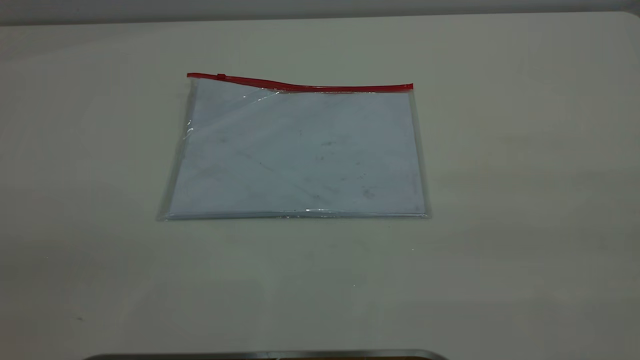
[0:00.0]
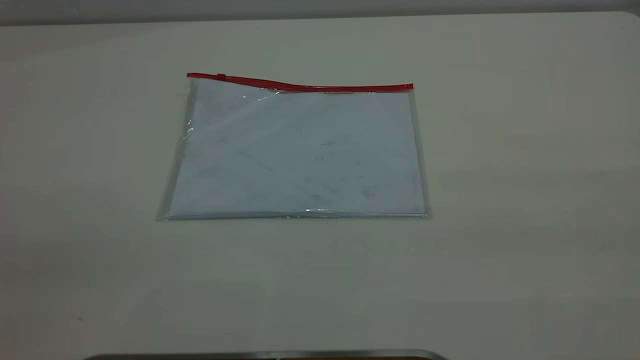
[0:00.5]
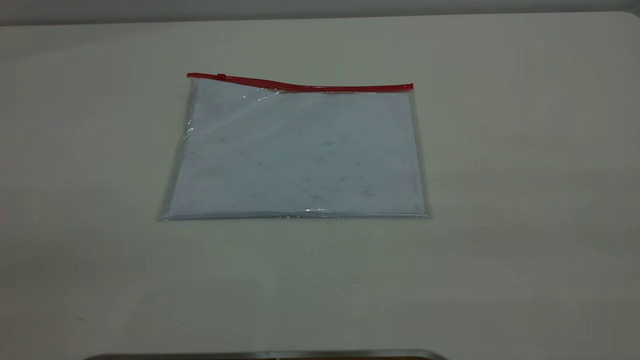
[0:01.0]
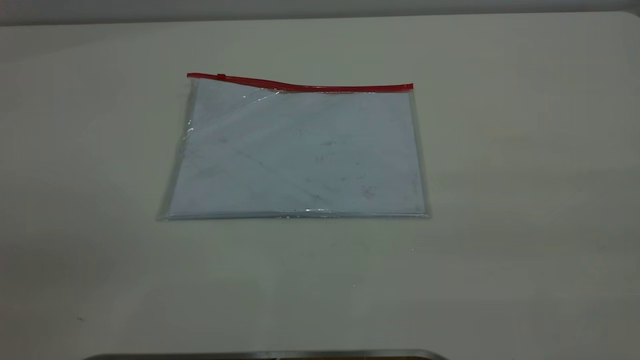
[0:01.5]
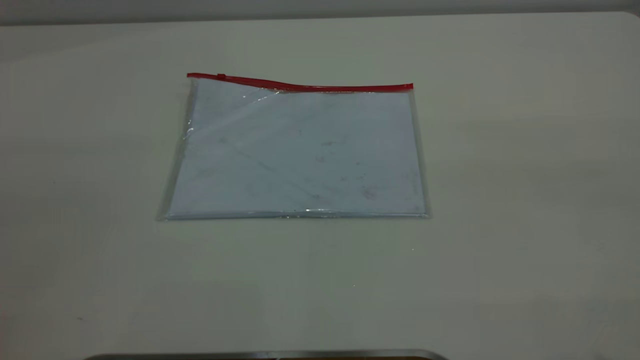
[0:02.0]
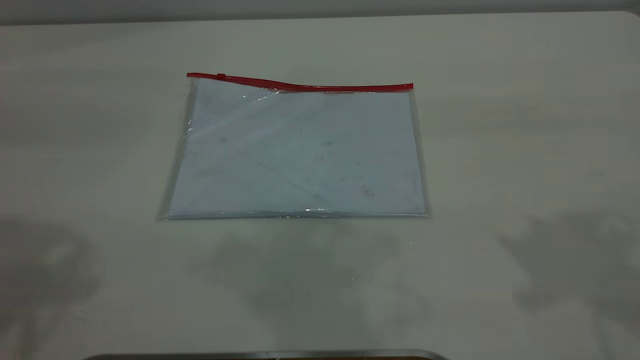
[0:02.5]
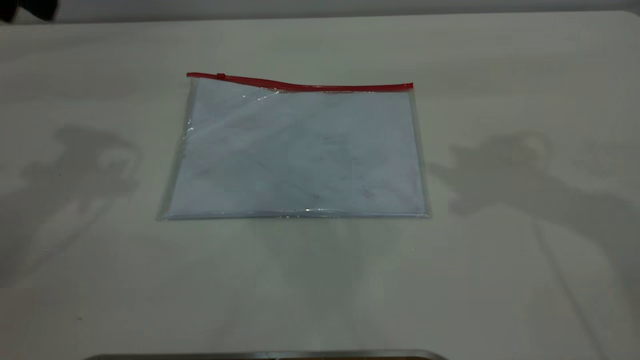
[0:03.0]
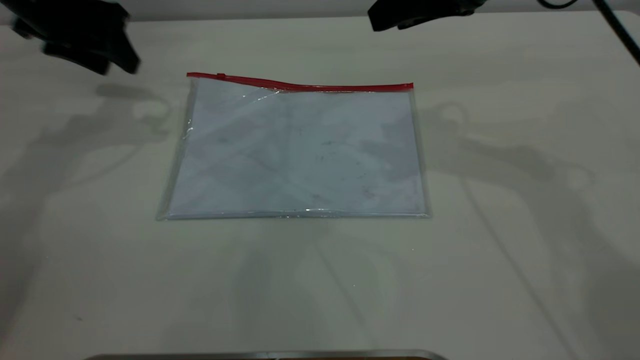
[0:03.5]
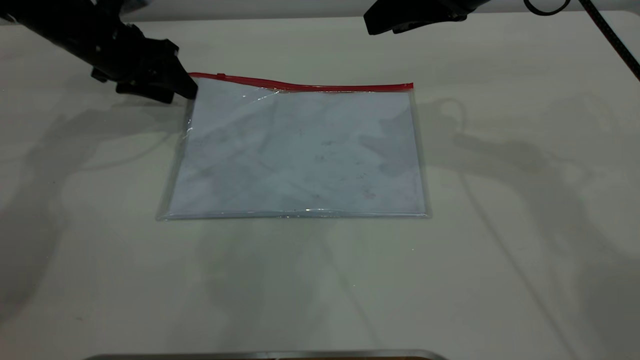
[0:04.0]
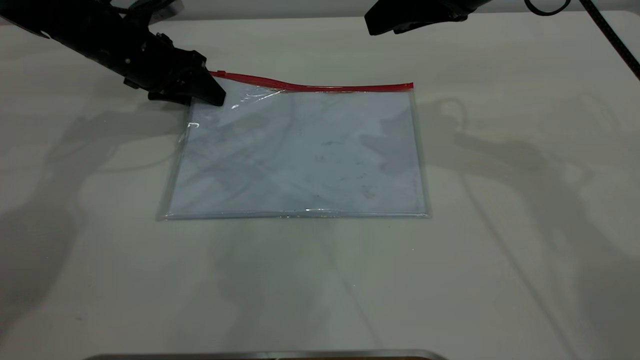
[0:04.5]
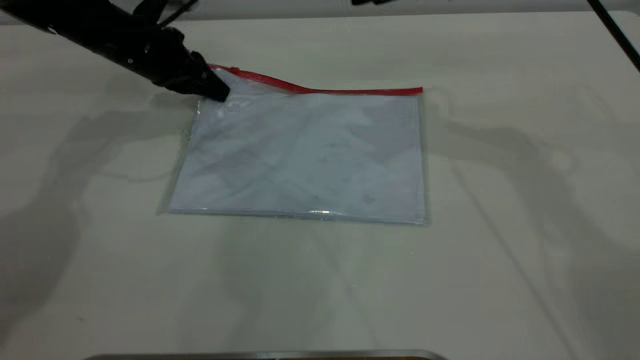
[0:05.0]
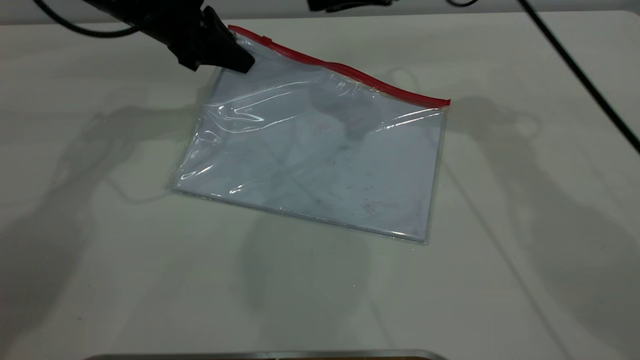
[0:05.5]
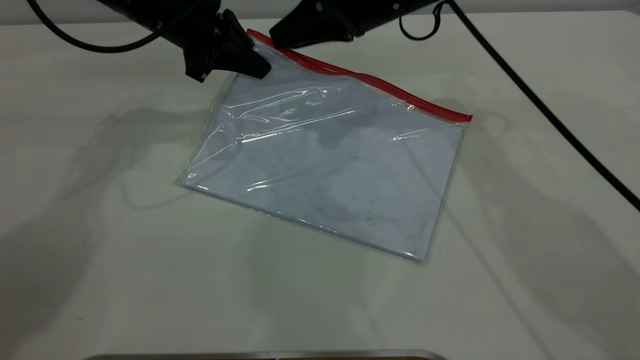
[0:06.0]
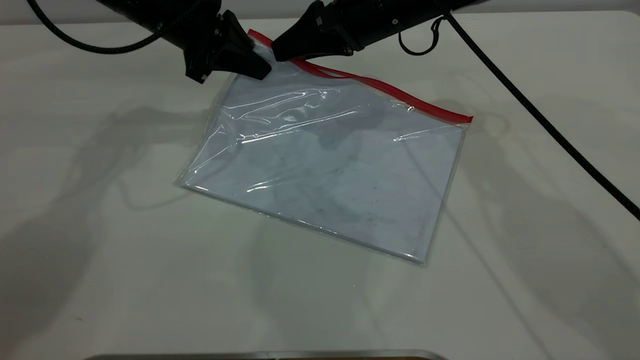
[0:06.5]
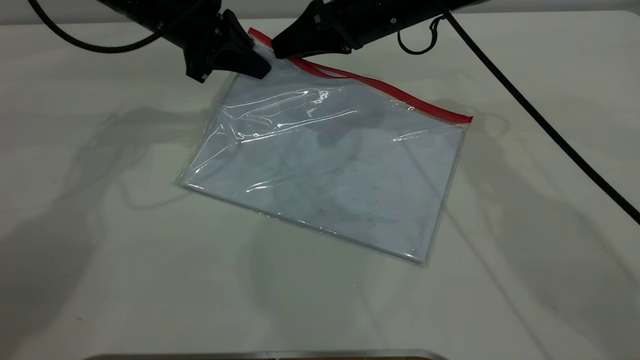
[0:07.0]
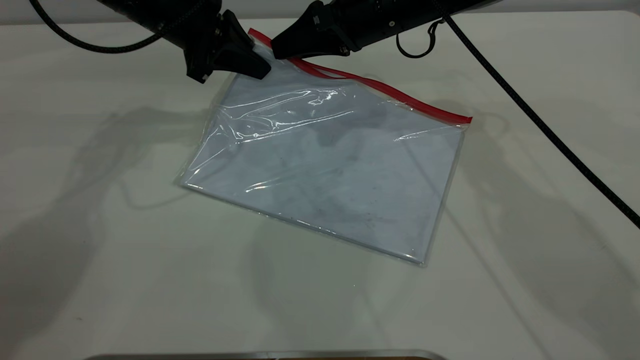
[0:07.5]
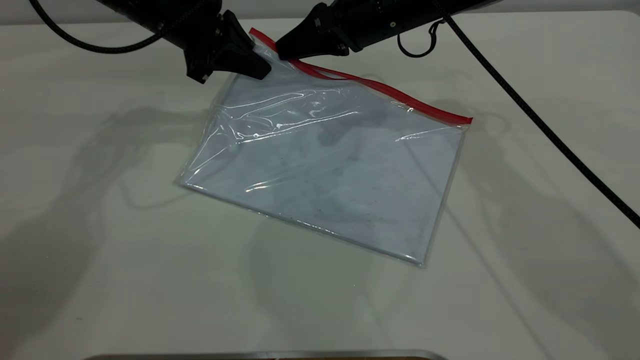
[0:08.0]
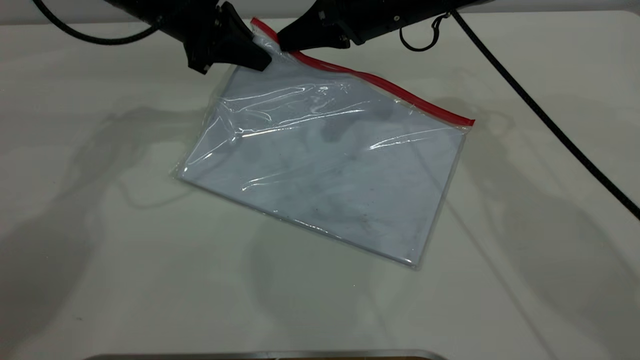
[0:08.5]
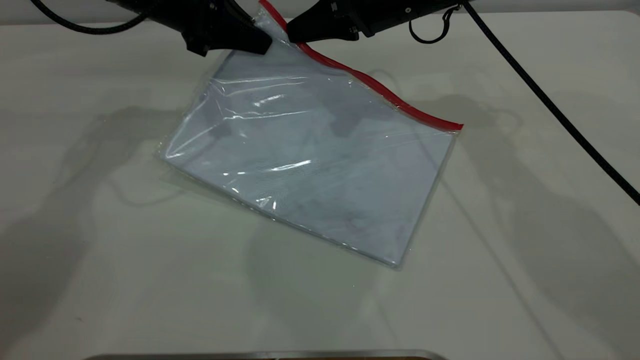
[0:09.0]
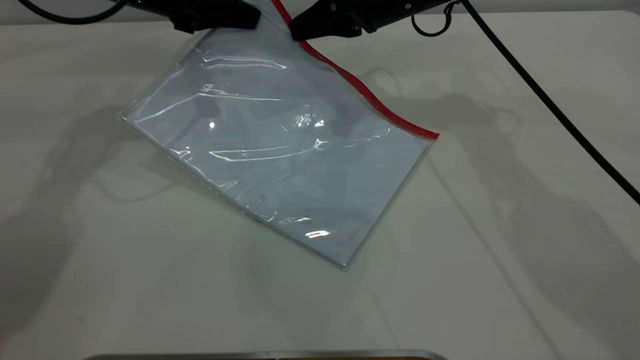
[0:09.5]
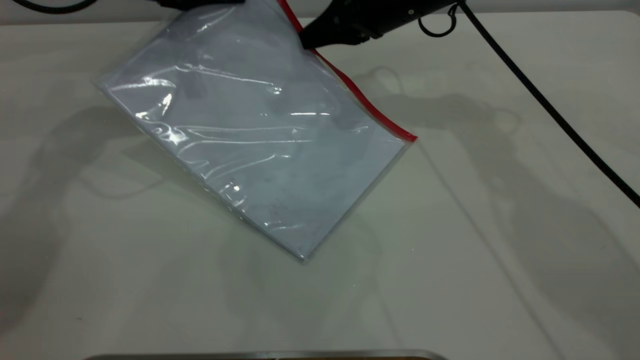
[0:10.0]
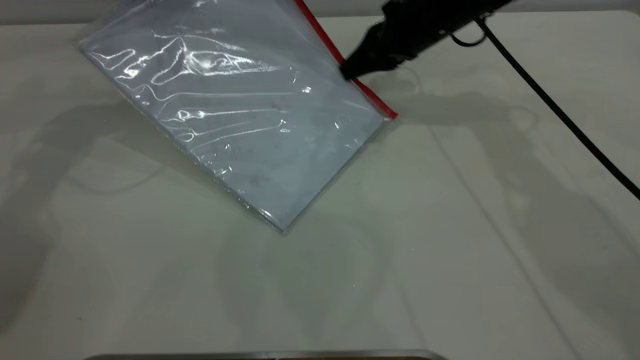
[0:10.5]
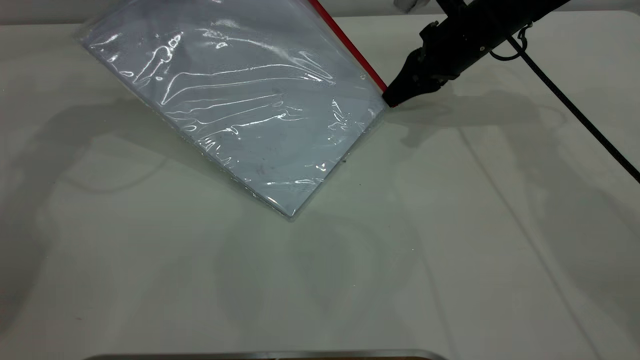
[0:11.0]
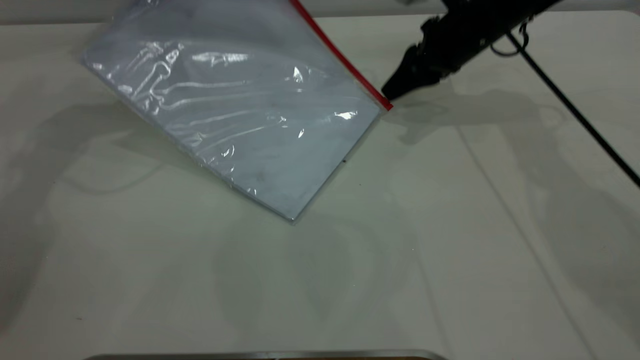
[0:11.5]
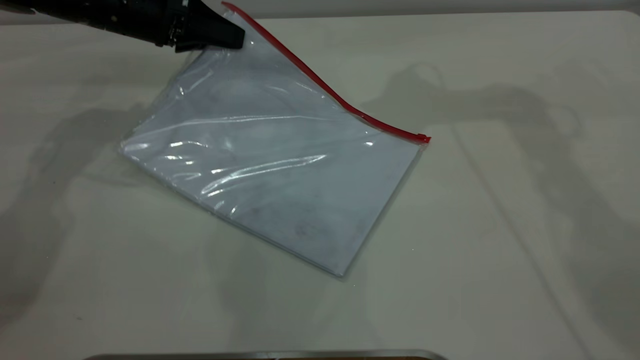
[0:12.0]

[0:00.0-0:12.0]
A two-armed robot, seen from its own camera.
Step, 0:00.0 to 0:05.0: Pick up the transparent plastic bag with the left gripper.
Step, 0:05.5 to 0:11.5: Pulling up the zipper on the transparent plastic bag with the right gripper to close it.
0:02.0 to 0:04.0: Both grippers travel together forward and downward, roughly 50 cm.
0:04.0 to 0:06.0: The left gripper heads to the right, covering about 10 cm, and closes up. The right gripper moves to the left, forward and downward, some 10 cm.
0:06.0 to 0:08.0: The right gripper closes its fingers.
0:08.0 to 0:10.0: The left gripper ends up roughly 5 cm from where it was.
0:10.0 to 0:12.0: The left gripper opens its fingers; the right gripper goes about 15 cm upward, and opens up.

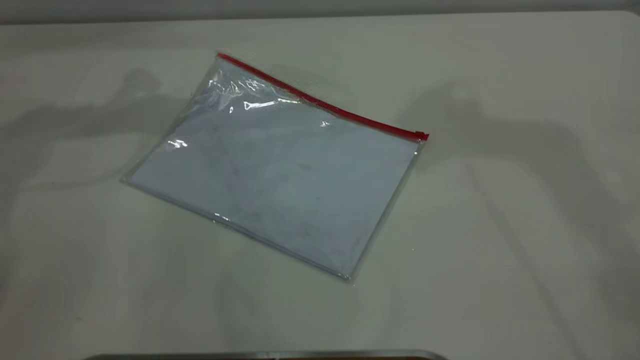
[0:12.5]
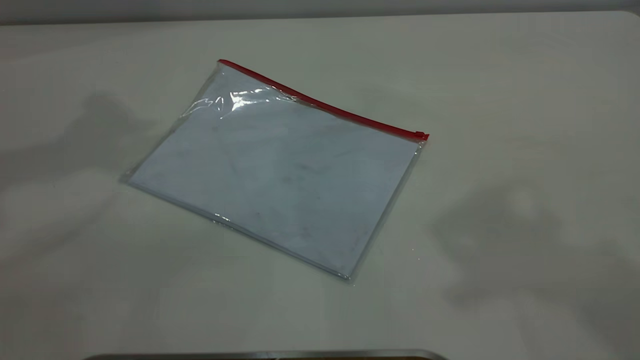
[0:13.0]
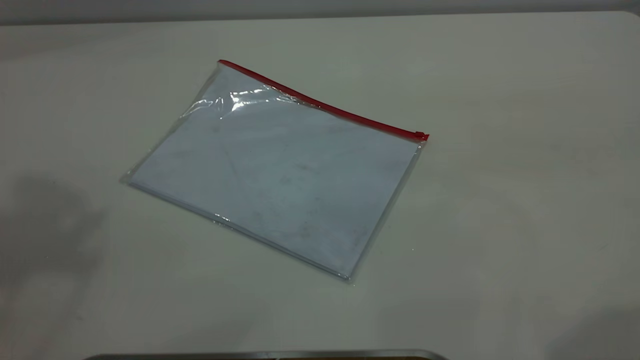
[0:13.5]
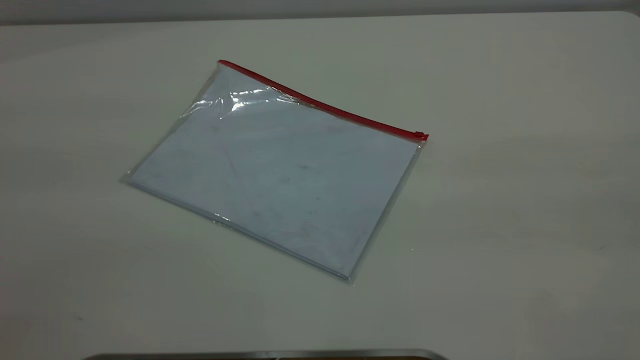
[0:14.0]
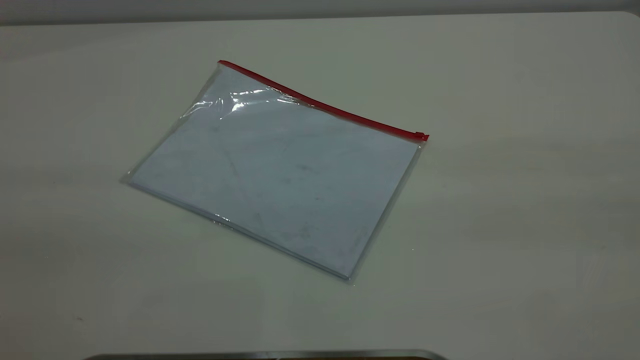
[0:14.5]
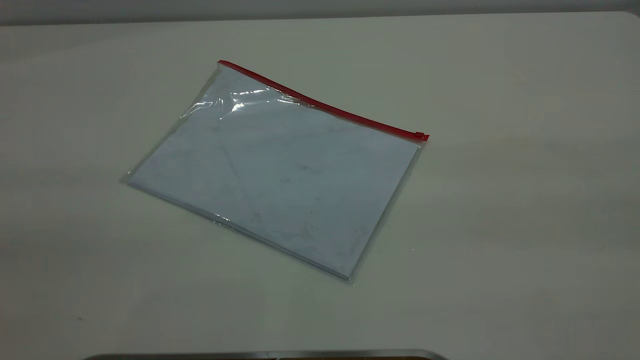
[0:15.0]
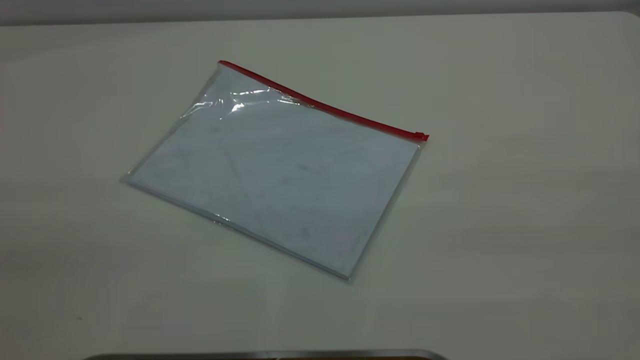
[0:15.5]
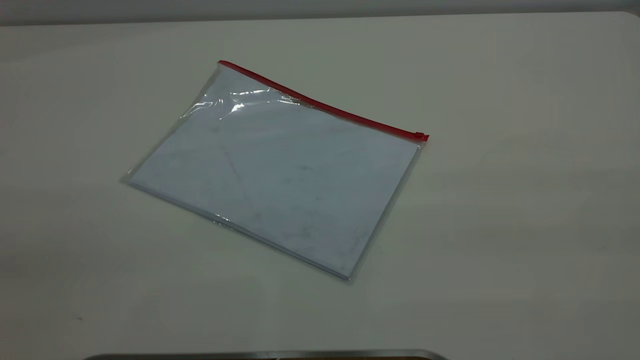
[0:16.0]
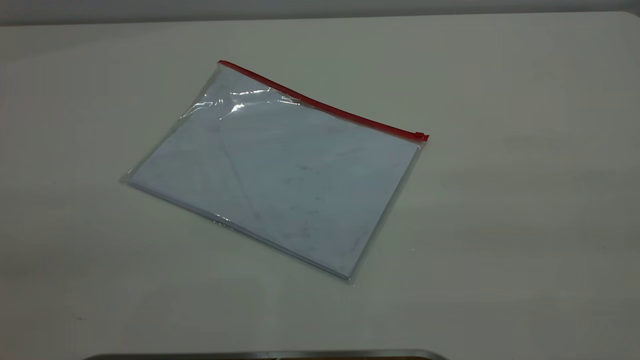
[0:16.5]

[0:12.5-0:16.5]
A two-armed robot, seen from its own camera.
0:12.5 to 0:14.5: The grippers both shift backward by about 40 cm.

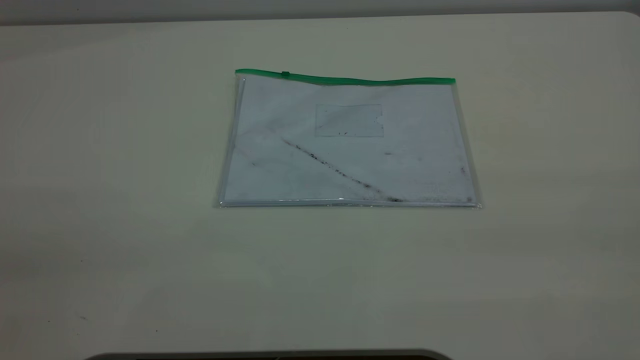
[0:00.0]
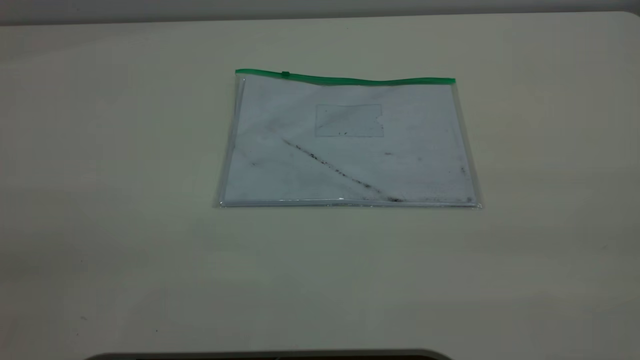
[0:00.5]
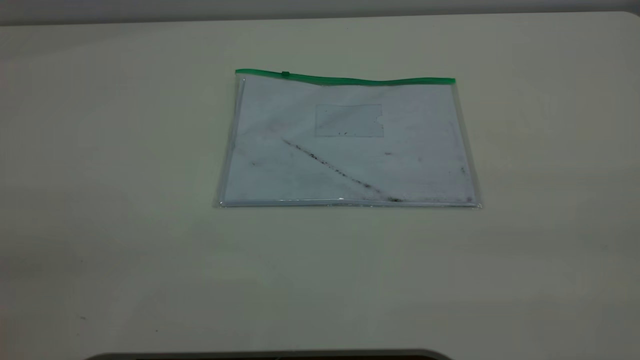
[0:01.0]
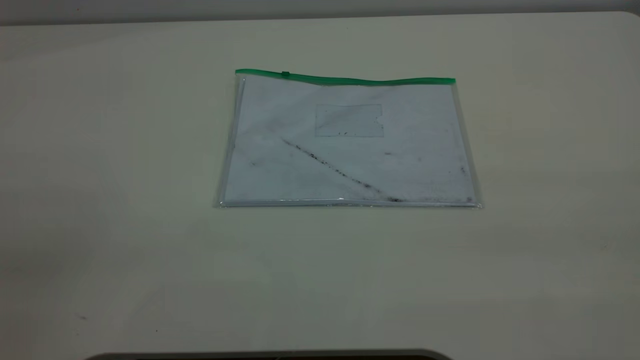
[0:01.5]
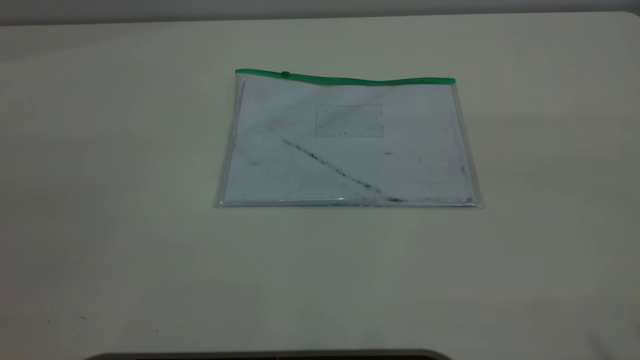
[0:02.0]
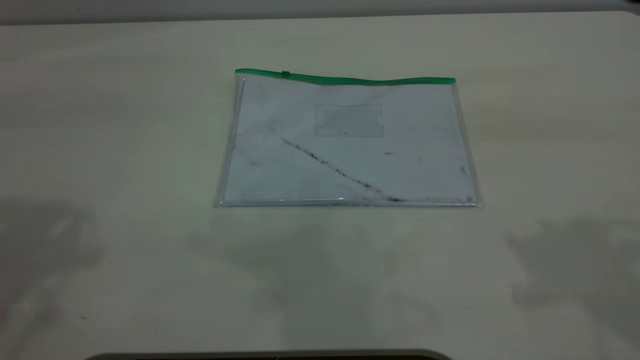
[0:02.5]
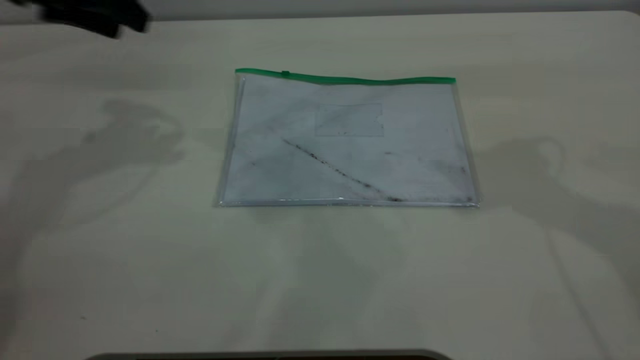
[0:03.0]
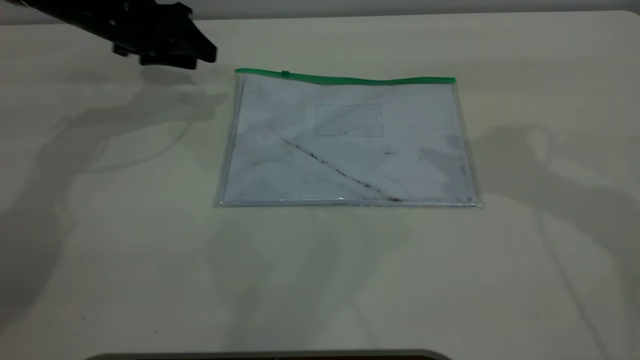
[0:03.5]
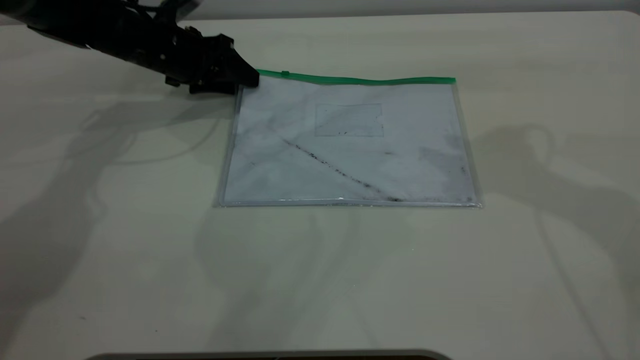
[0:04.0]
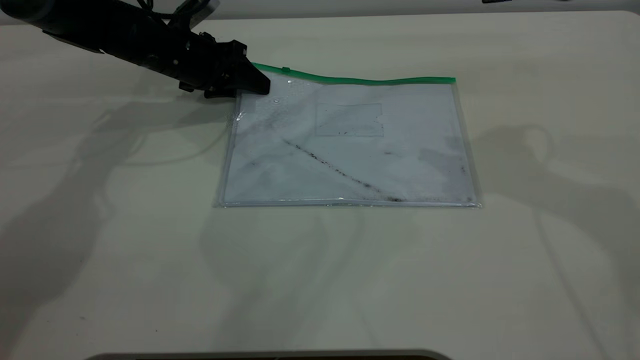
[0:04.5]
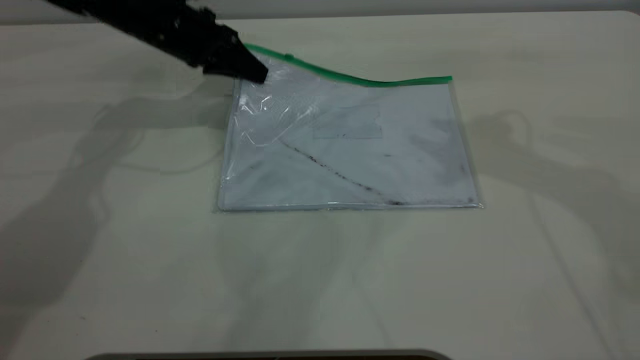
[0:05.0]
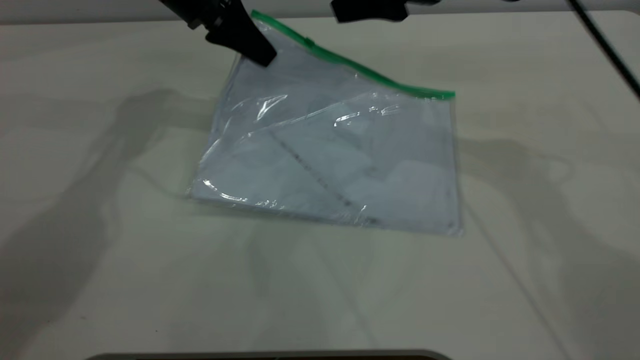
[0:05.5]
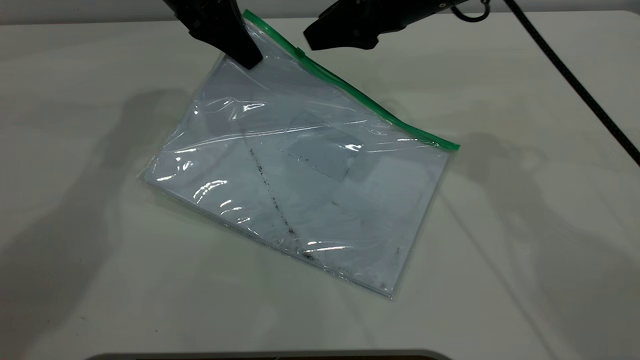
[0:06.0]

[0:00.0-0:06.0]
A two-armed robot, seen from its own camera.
Step, 0:00.0 to 0:05.0: Pick up the transparent plastic bag with the left gripper.
0:02.0 to 0:04.0: The right gripper moves forward and downward, approximately 30 cm. Meanwhile the left gripper heads forward and downward, covering roughly 50 cm.
0:04.0 to 0:06.0: The right gripper shifts approximately 15 cm to the left, downward and forward, while the left gripper moves upward and to the right, approximately 15 cm, and closes up.
